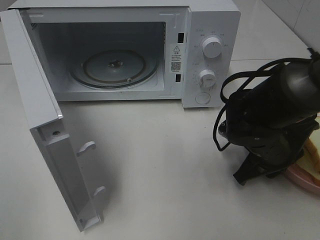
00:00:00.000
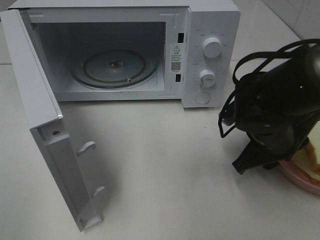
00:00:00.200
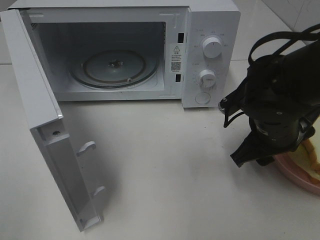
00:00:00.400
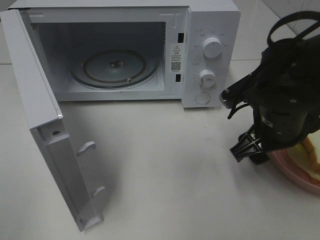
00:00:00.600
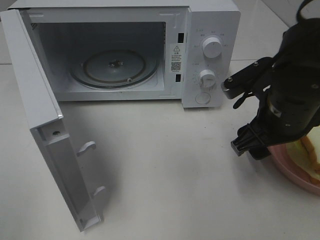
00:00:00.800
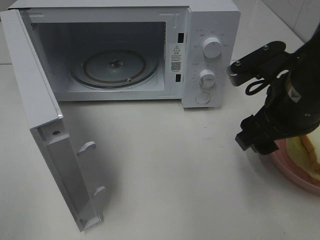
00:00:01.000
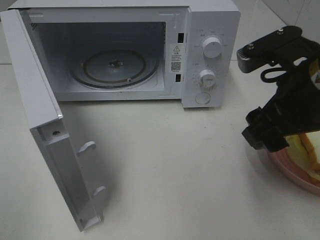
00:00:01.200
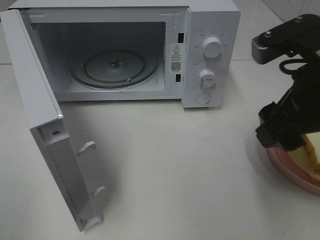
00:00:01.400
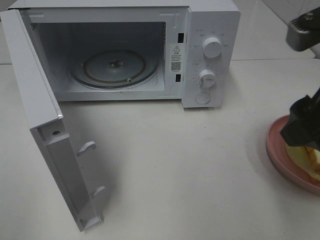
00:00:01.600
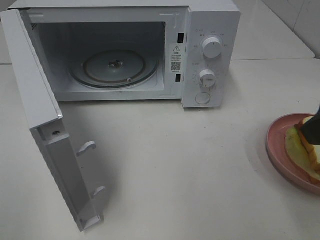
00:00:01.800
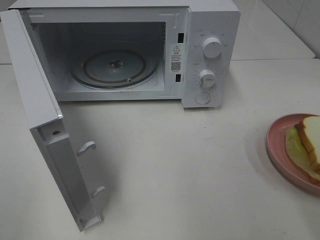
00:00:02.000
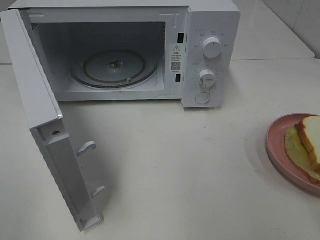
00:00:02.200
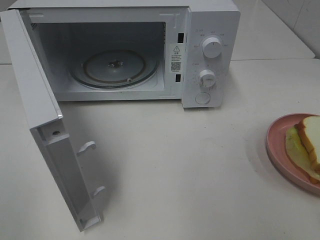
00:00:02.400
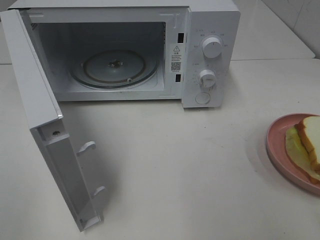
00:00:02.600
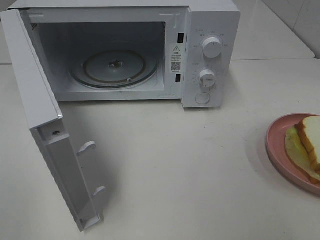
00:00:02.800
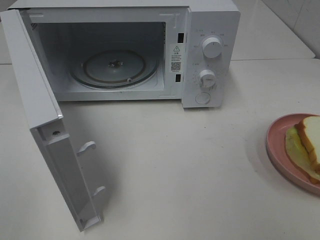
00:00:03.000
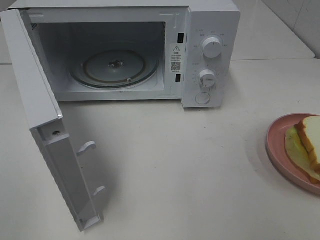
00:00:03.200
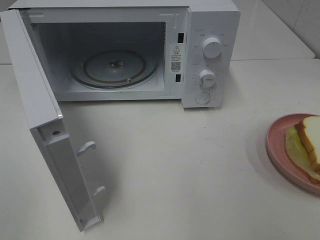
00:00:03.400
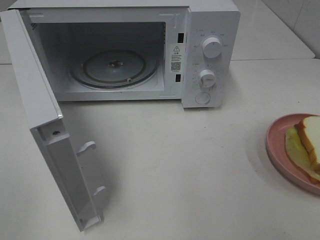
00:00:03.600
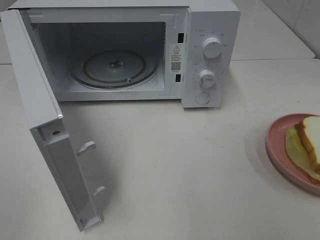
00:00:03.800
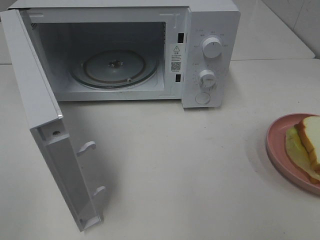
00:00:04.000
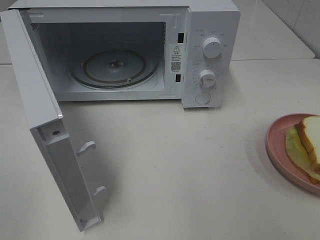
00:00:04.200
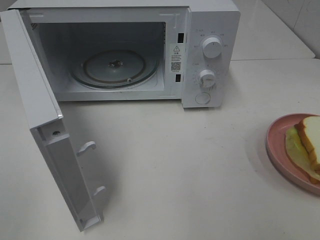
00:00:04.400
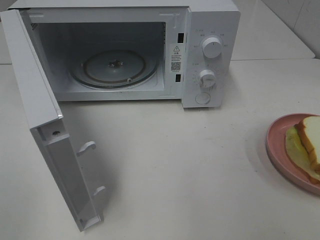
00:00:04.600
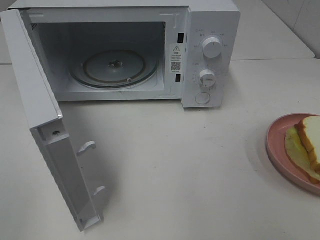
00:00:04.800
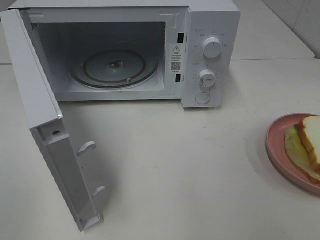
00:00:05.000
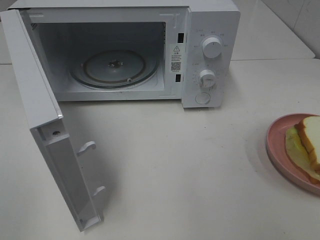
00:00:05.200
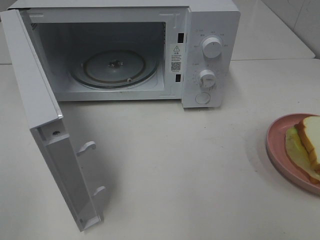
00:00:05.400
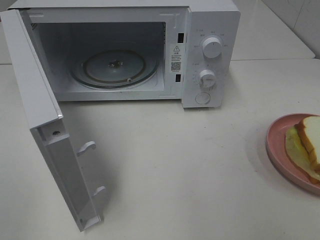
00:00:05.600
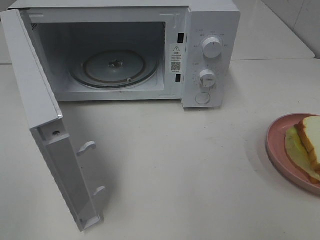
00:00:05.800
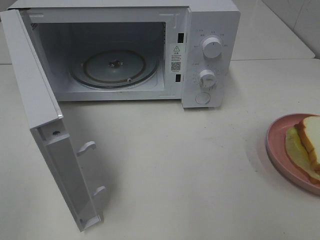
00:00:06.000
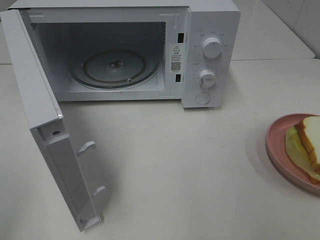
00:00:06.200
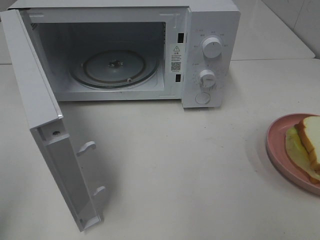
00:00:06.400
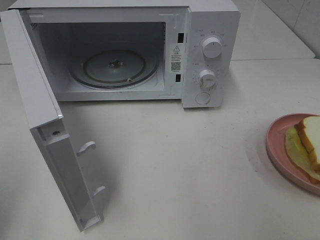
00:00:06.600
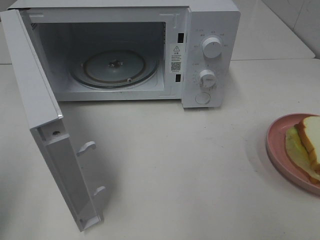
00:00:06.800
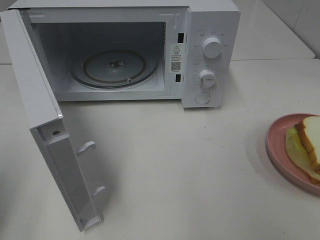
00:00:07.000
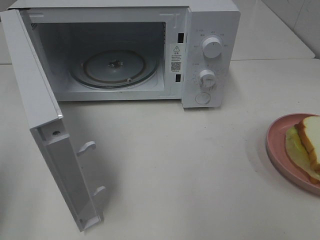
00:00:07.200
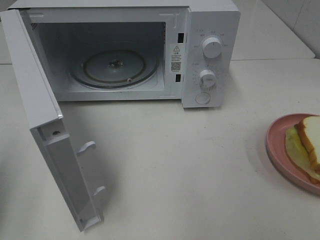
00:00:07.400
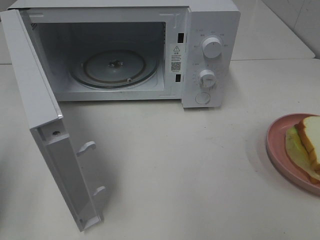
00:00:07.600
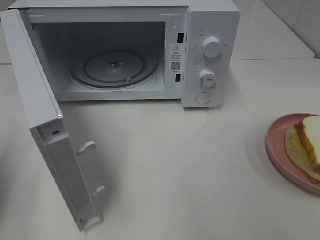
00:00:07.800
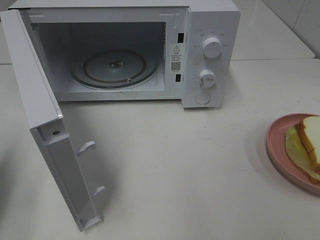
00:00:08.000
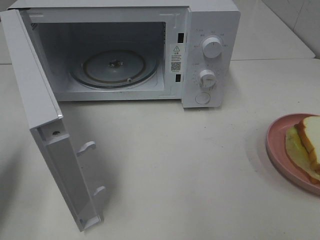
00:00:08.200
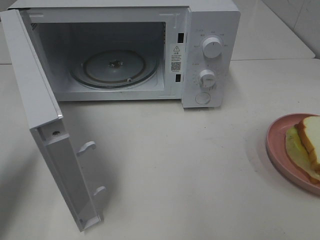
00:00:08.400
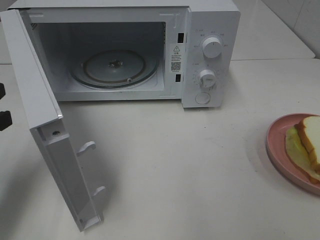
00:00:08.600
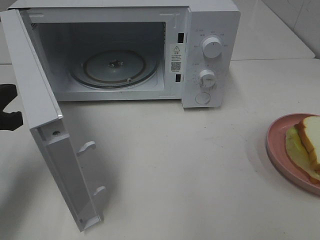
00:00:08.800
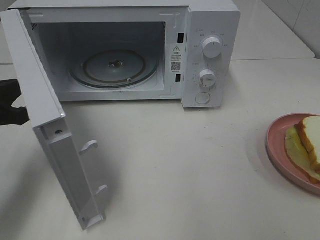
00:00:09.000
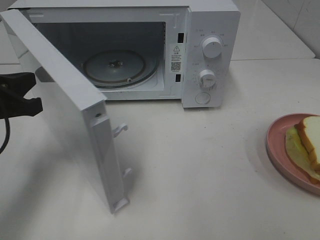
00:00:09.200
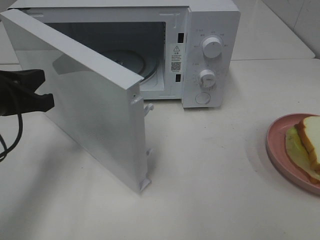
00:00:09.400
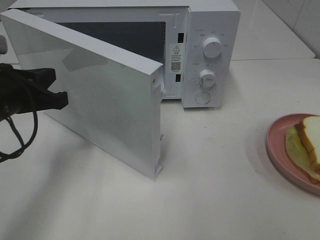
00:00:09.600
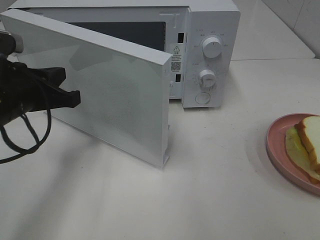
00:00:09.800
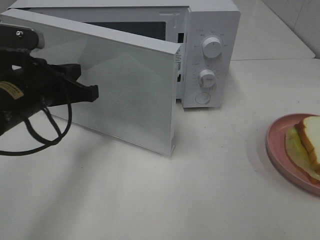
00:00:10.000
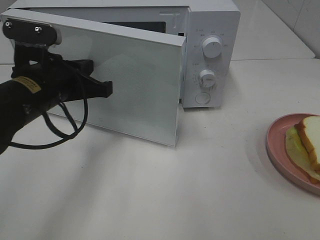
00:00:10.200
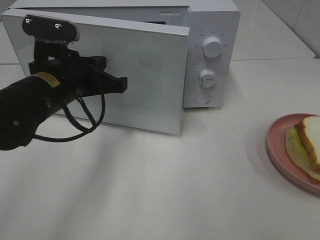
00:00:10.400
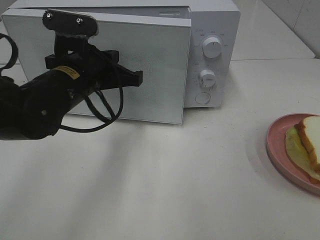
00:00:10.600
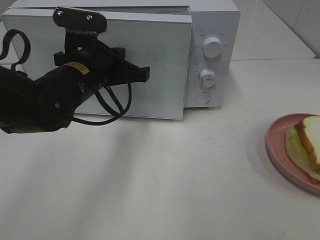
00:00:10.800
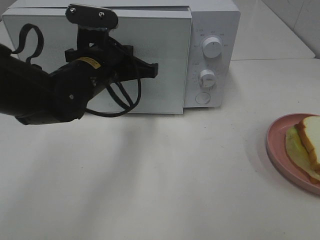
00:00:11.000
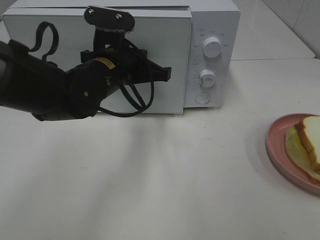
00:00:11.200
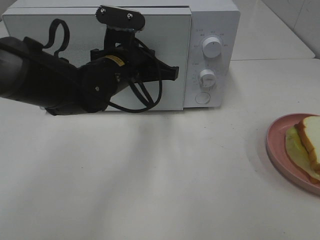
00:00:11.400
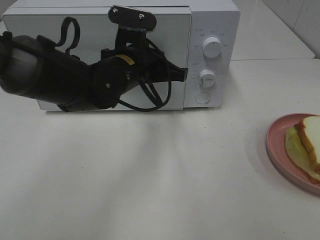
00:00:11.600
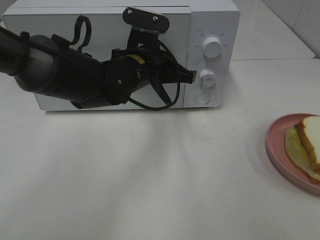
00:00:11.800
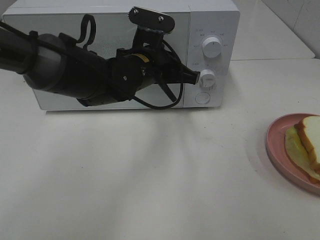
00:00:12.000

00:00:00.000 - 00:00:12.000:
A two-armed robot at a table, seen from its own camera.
Task of the whole recording: Heat Sandwich.
00:00:00.000 - 00:00:01.600: The right gripper shifts roughly 20 cm upward and backward, and opens up.
00:00:01.600 - 00:00:03.000: The right gripper shifts about 15 cm backward and to the right.
00:00:07.600 - 00:00:09.000: The left gripper travels forward and to the right by roughly 10 cm.
00:00:09.000 - 00:00:10.400: The left gripper is displaced to the right and forward by approximately 15 cm.
00:00:10.400 - 00:00:12.000: The left gripper shifts some 15 cm to the right and forward.

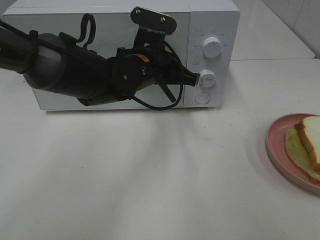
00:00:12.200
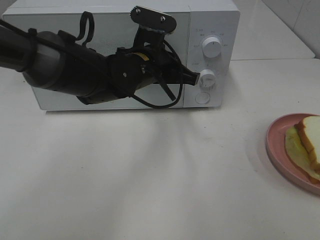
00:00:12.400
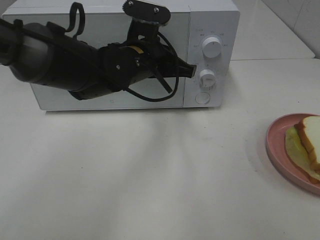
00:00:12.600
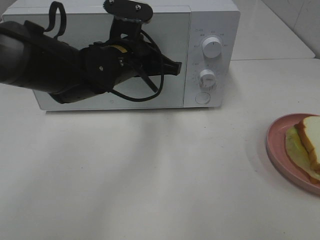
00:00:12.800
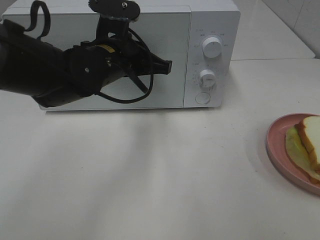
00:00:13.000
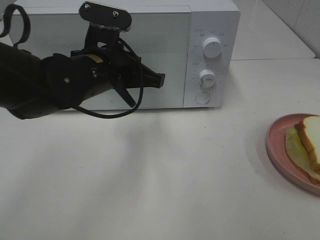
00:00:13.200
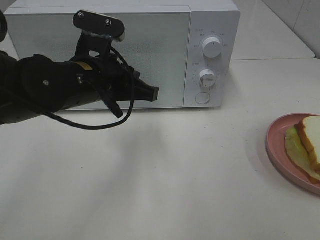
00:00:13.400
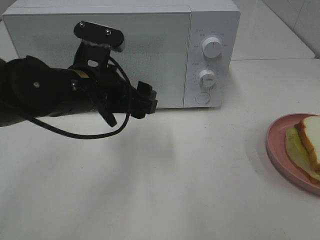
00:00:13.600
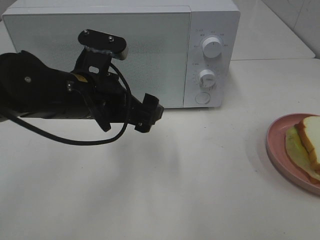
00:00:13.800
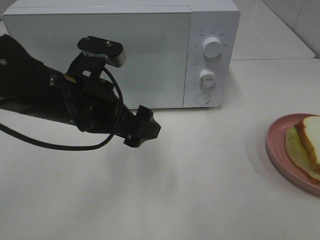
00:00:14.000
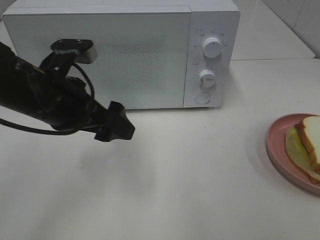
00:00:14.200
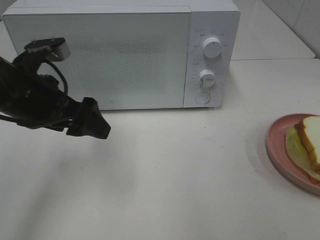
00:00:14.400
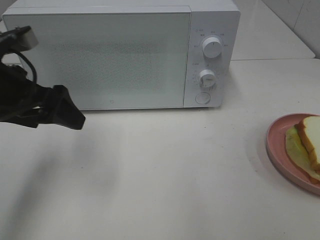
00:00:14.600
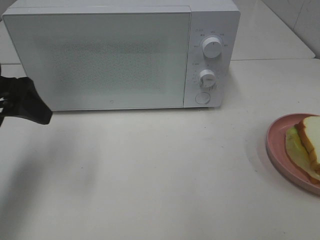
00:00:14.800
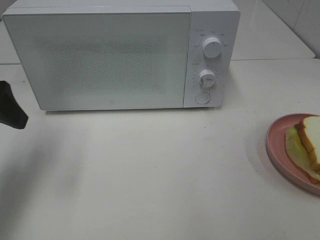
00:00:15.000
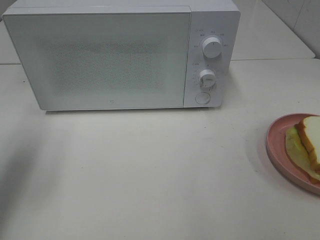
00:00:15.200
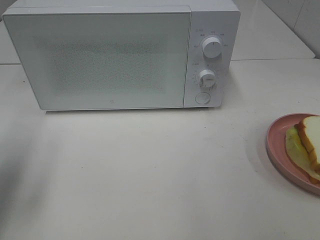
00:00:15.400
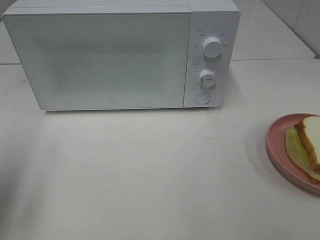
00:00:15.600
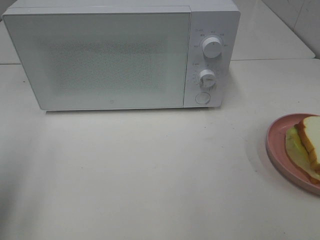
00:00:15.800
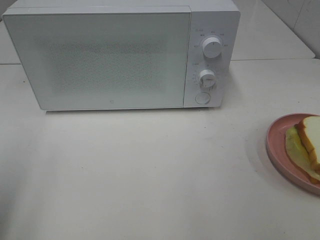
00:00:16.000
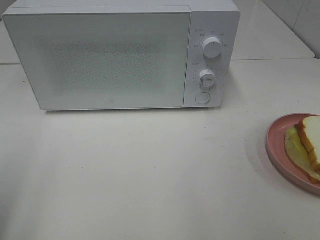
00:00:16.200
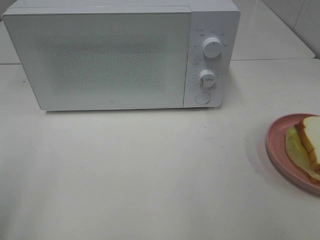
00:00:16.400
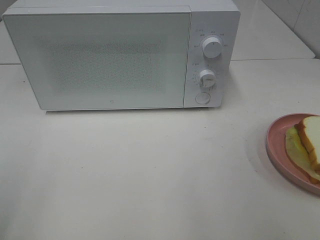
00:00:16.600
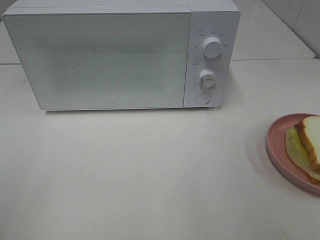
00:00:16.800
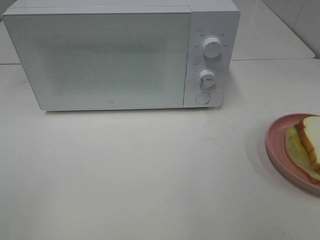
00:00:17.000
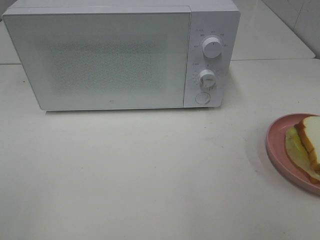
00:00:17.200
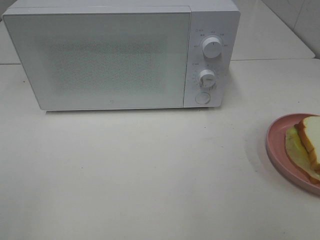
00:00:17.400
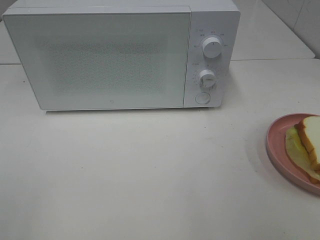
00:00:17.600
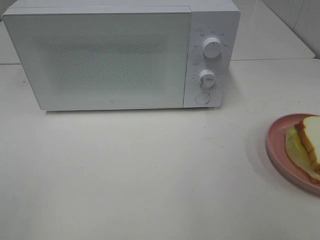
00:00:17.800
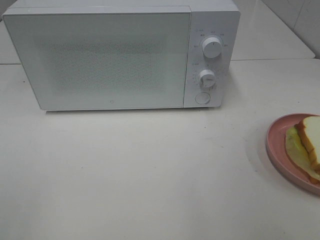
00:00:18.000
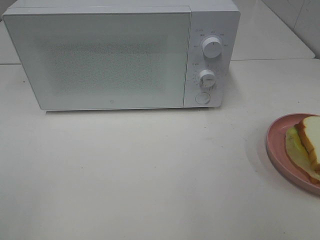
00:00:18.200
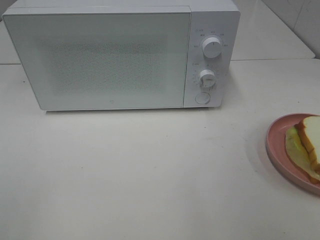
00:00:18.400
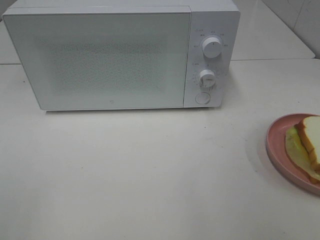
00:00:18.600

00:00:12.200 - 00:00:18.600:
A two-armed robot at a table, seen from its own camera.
Task of the whole recording: Heat Sandwich.
00:00:12.200 - 00:00:13.800: The left gripper travels backward and to the left by some 10 cm, and opens.
00:00:13.800 - 00:00:15.400: The left gripper is displaced to the left by approximately 25 cm.
00:00:15.400 - 00:00:17.000: The left gripper moves backward, about 20 cm.
00:00:17.000 - 00:00:18.600: Both grippers stay put.
